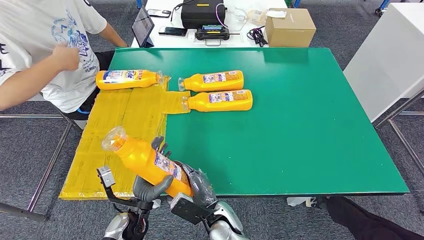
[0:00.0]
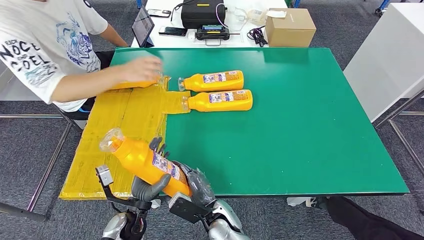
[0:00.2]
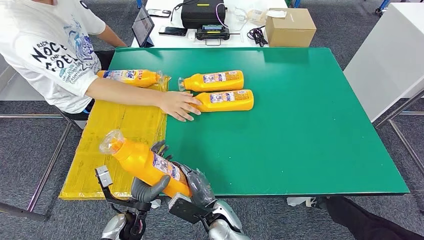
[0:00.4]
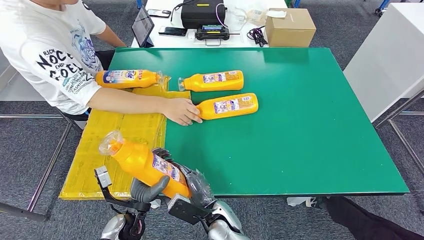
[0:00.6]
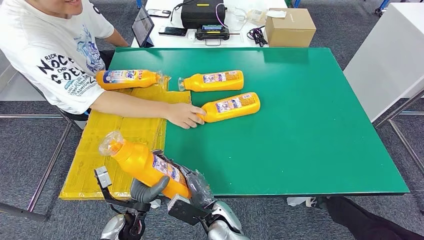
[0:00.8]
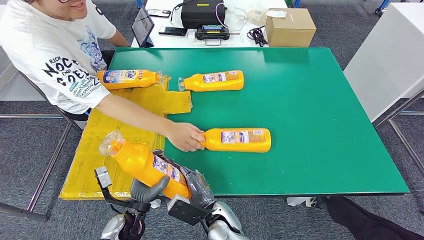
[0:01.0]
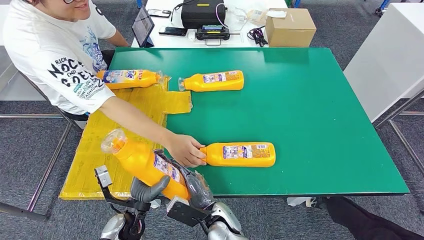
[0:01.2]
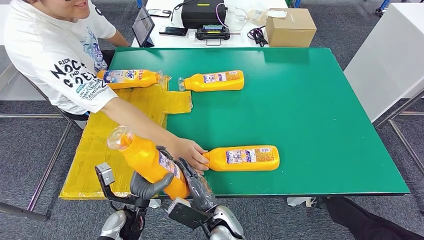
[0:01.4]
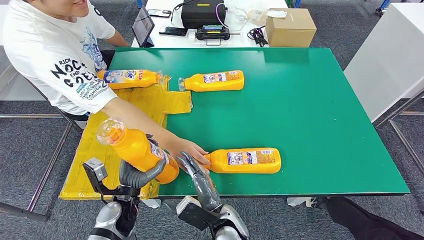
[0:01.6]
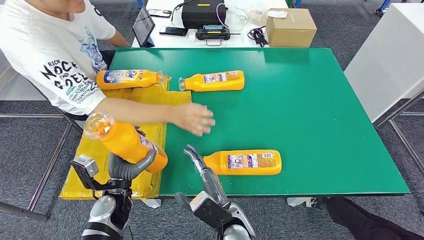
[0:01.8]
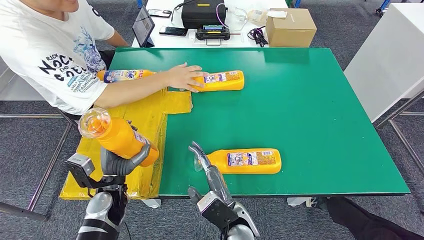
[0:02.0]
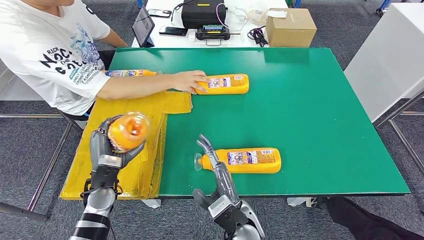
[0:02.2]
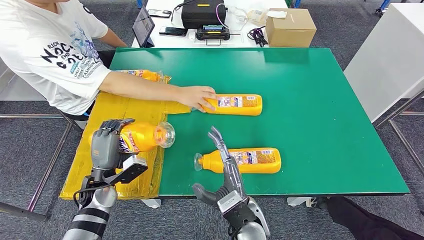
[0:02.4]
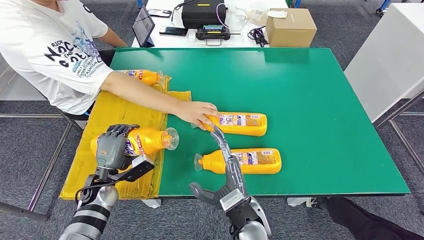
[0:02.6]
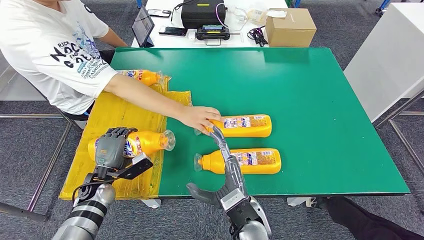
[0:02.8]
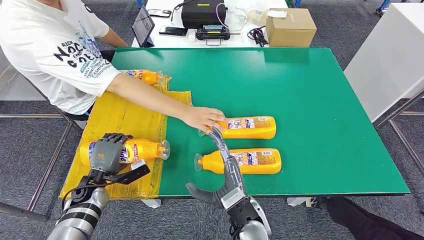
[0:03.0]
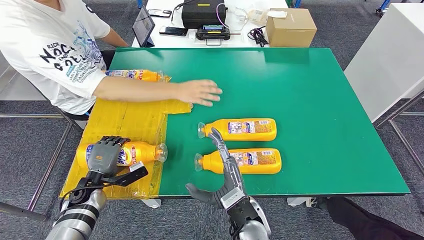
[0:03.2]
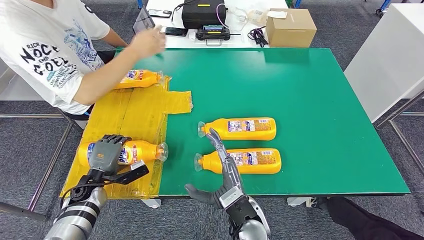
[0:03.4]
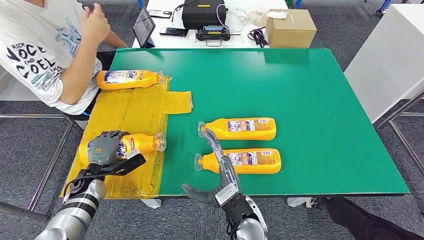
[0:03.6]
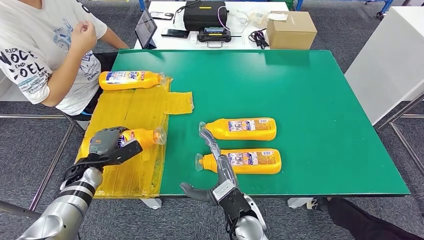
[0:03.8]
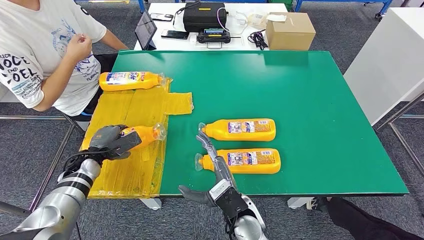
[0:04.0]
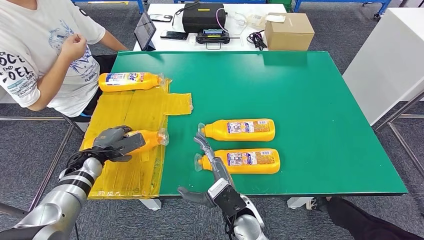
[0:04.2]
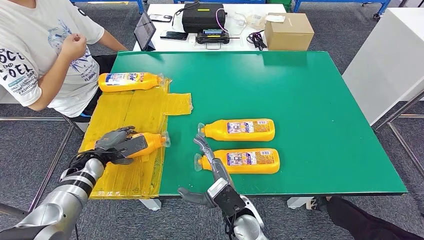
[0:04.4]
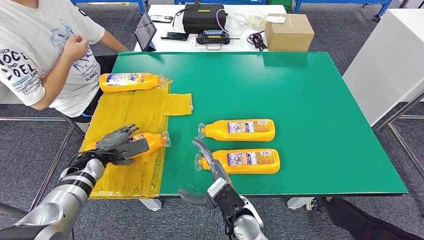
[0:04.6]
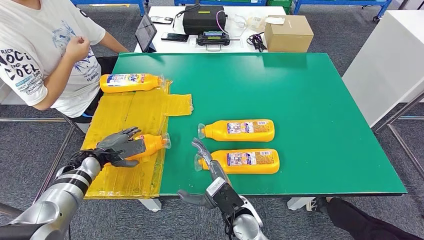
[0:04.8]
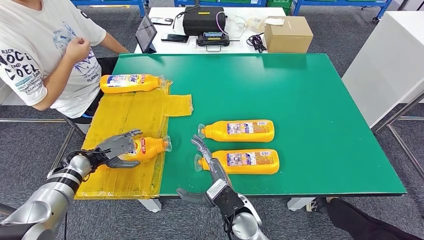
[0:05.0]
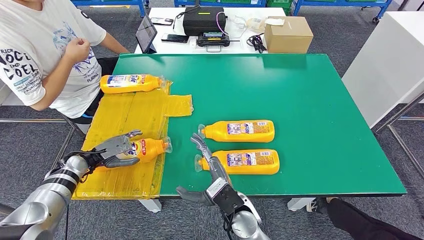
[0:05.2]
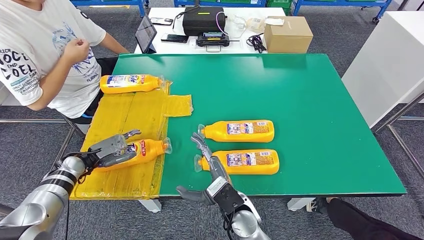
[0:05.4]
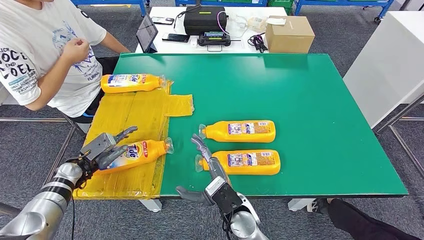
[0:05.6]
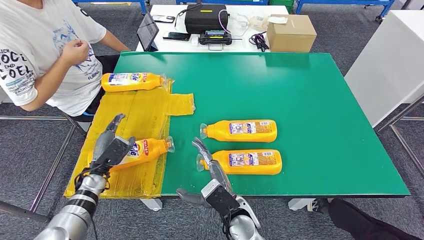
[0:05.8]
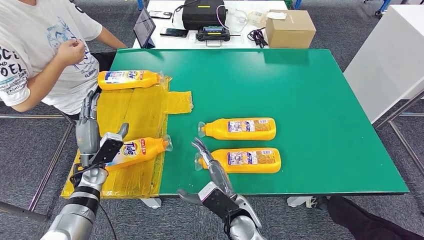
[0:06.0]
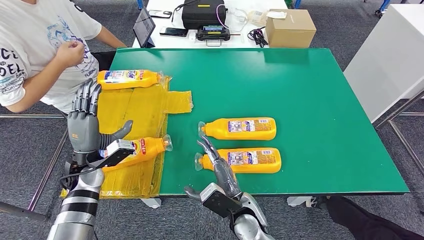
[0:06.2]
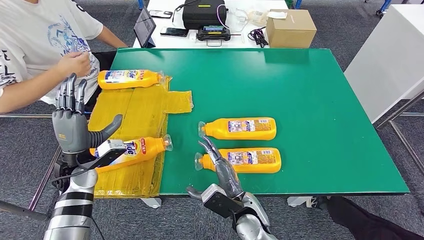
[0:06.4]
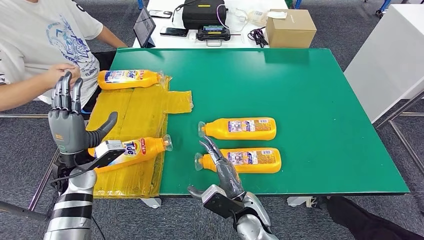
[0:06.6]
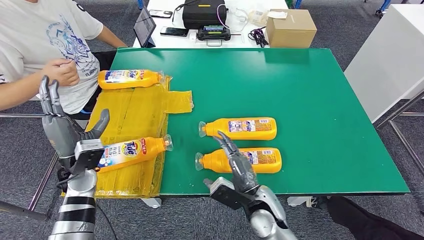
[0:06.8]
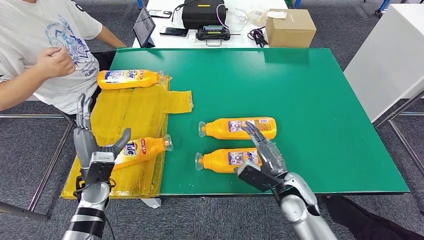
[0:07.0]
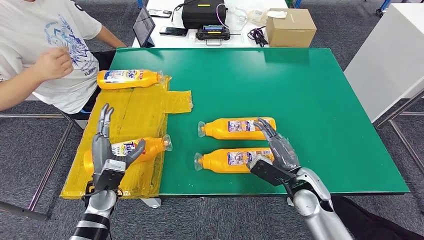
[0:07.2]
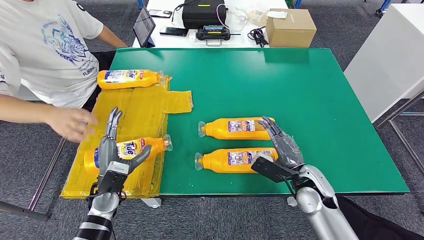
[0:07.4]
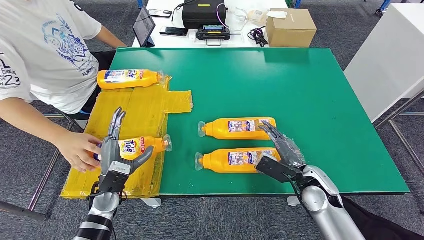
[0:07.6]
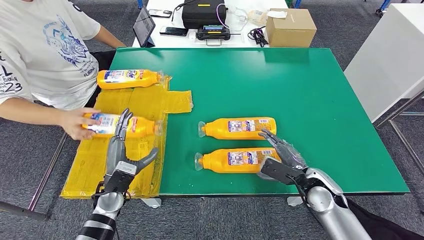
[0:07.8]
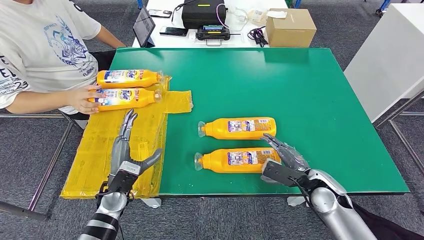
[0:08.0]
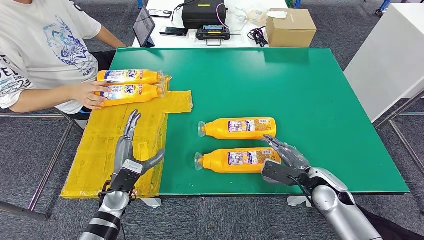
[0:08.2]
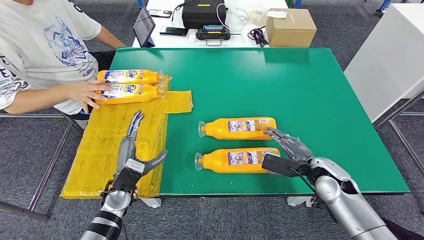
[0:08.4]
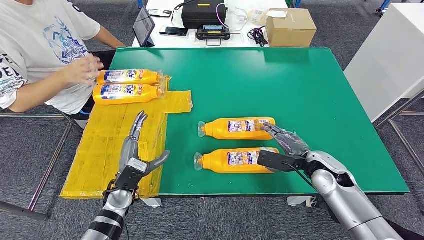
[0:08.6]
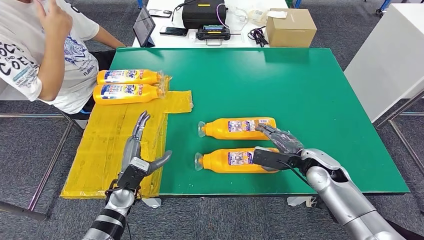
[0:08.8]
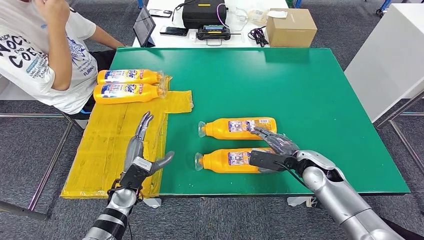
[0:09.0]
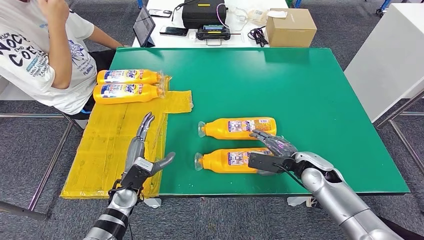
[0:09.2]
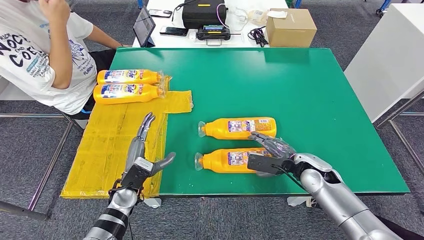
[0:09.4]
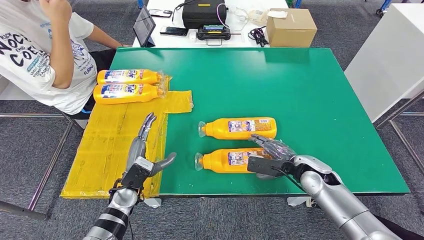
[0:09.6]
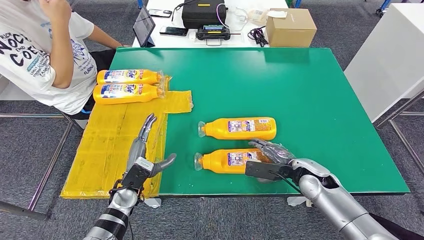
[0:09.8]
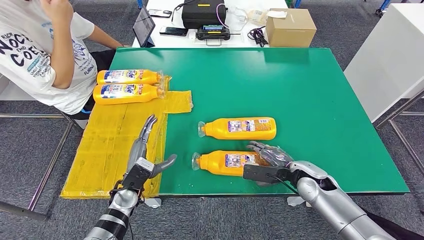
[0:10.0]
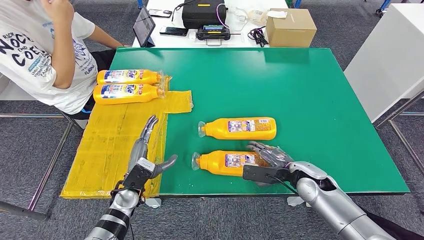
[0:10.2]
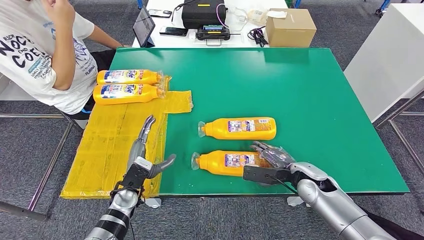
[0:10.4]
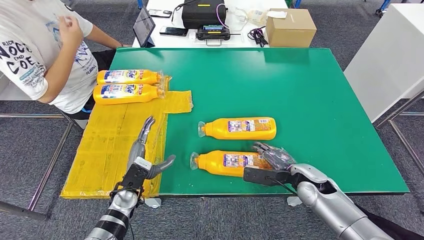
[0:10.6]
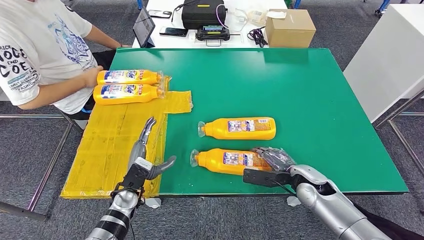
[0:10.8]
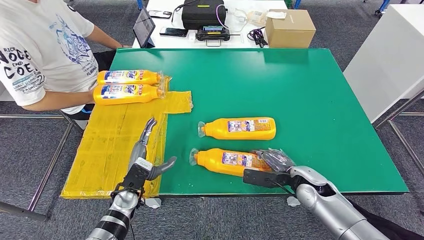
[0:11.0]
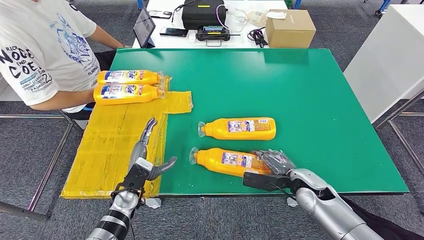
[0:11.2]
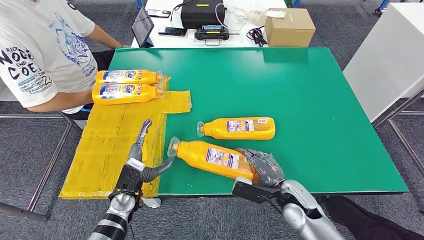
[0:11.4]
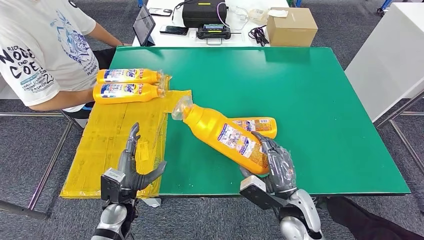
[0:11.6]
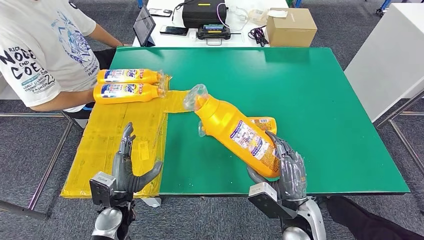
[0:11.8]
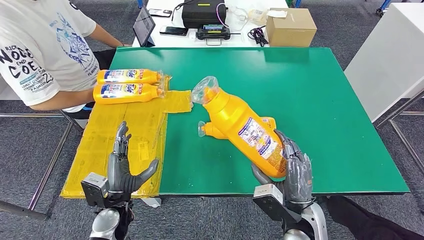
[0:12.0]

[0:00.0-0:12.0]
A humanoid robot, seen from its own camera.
Step, 0:00.0 to 0:05.8: Flip the bottle to face forward.
0:09.0 to 0:10.4: The hands move only a little.

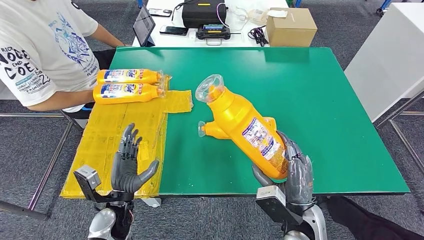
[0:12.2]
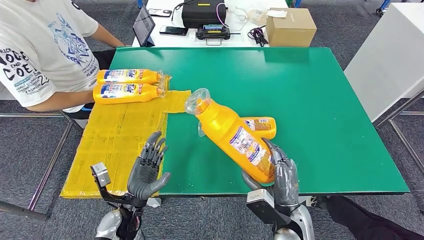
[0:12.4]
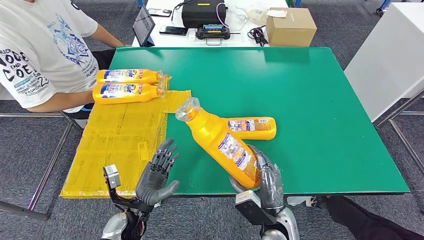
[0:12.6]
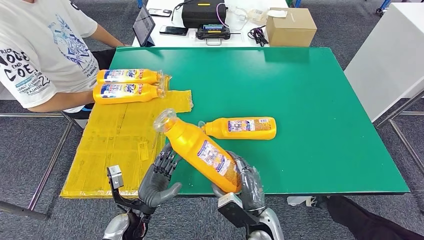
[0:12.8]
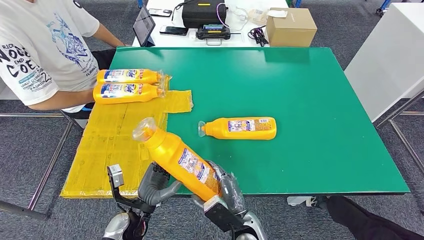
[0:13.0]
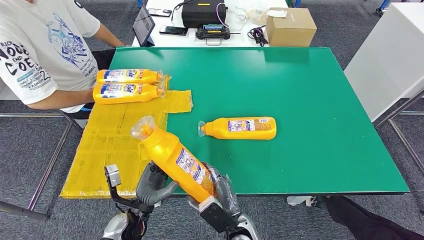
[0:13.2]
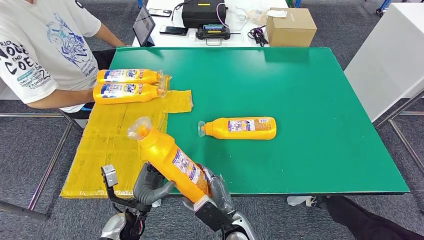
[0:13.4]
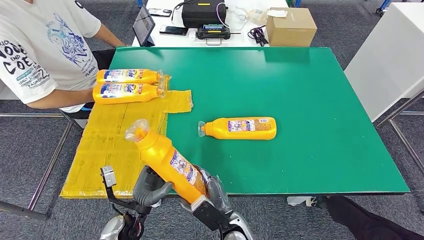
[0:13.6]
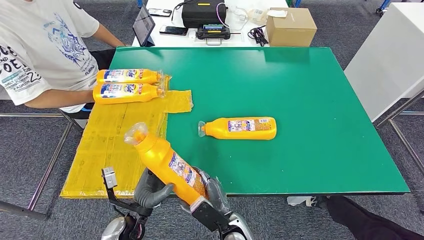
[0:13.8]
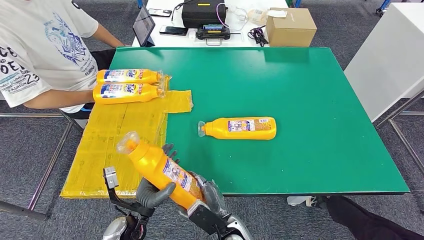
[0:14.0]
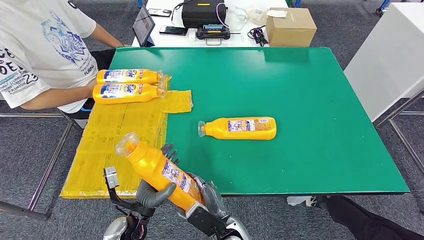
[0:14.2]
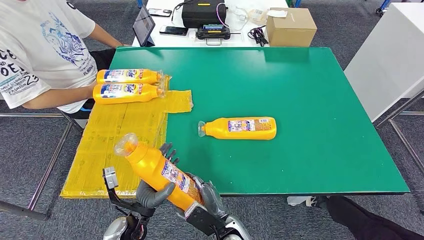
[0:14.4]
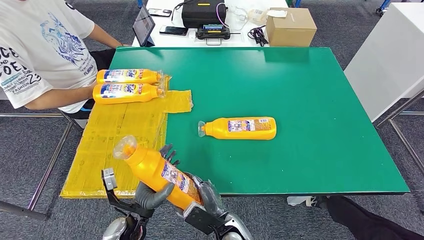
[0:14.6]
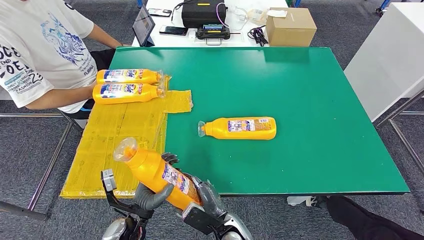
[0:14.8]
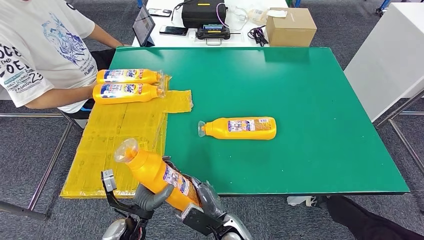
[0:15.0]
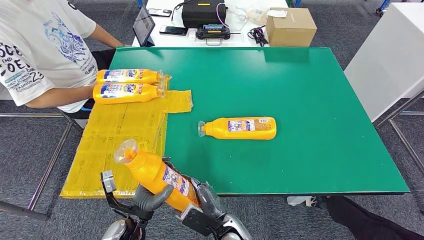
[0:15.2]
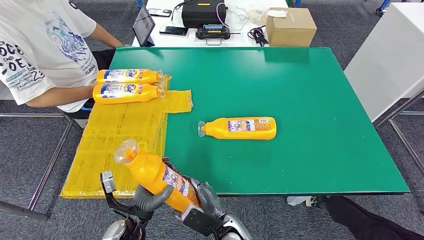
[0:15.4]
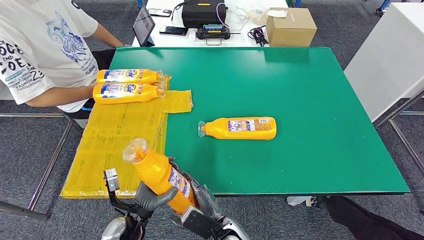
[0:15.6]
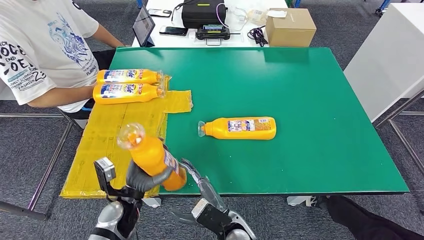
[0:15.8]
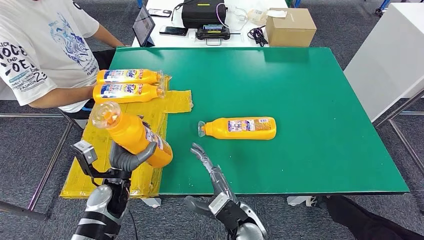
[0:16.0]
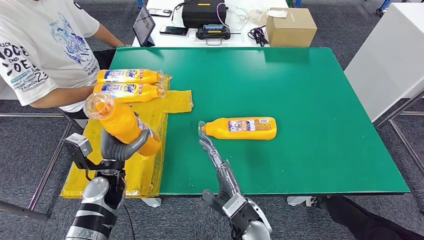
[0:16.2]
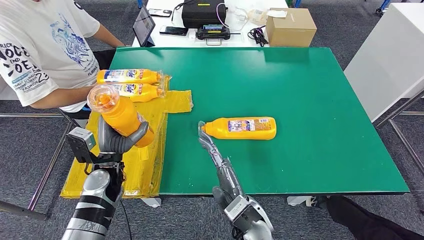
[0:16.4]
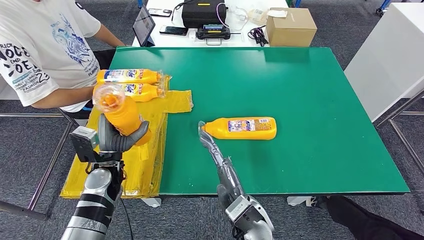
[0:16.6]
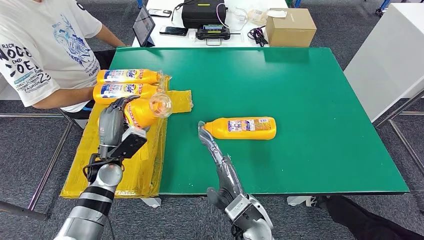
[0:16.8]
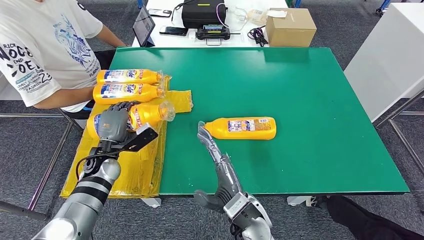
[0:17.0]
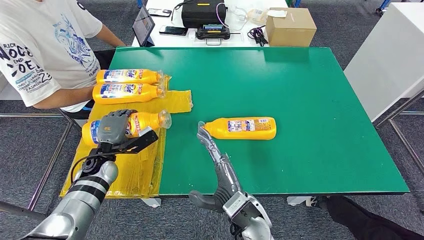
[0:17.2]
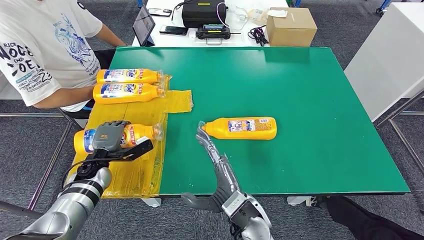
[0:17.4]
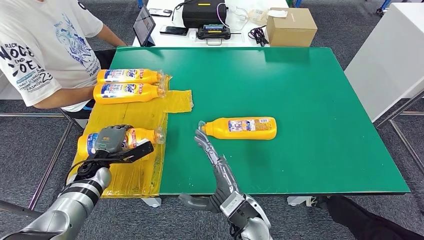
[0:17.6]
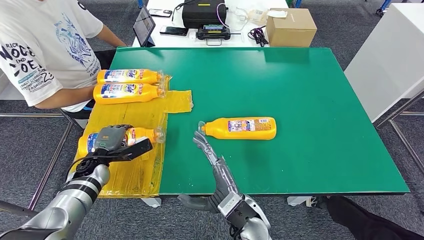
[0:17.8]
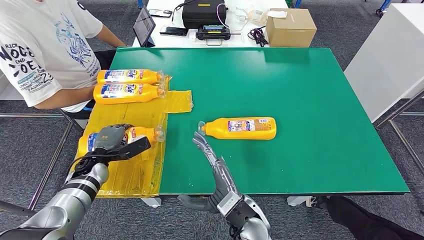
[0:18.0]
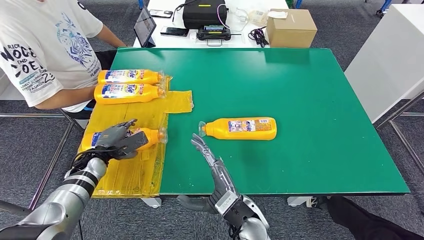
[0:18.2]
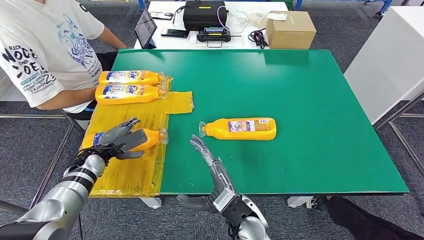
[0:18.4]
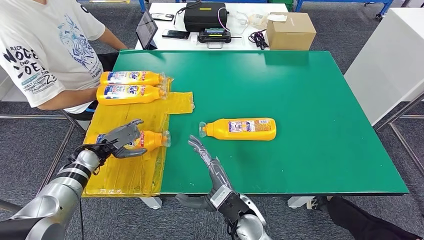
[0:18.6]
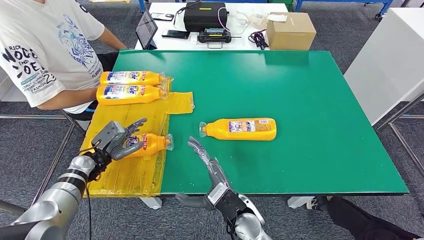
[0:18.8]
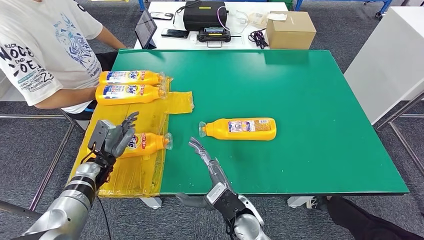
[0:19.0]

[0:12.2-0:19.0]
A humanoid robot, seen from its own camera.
Step, 0:12.2 to 0:14.6: Pick up the bottle from the table.
Step, 0:14.8 to 0:18.4: Flip the bottle to face forward.
0:12.2 to 0:13.6: The right hand travels to the left and downward by about 15 cm. The left hand moves approximately 5 cm.
0:13.6 to 0:15.0: The hands move only a little.
0:15.0 to 0:16.2: The right hand is displaced upward by approximately 10 cm. The left hand shifts approximately 15 cm forward, upward and to the left.
0:16.2 to 0:17.6: The left hand heads to the left and forward, covering about 10 cm.
